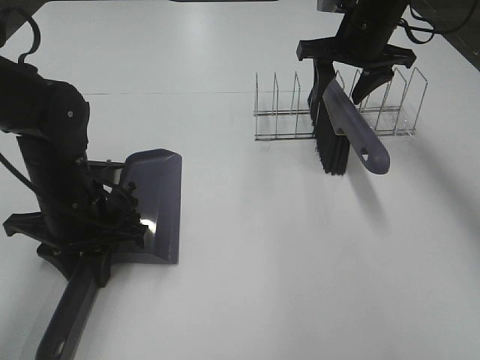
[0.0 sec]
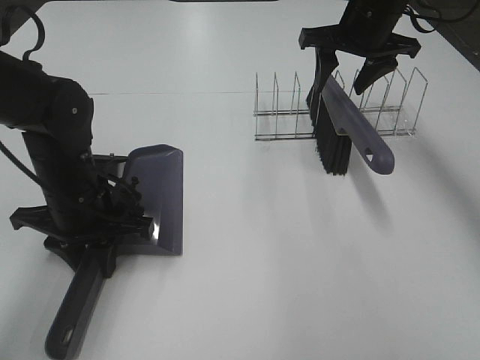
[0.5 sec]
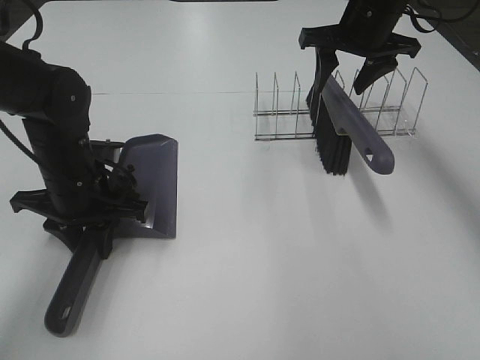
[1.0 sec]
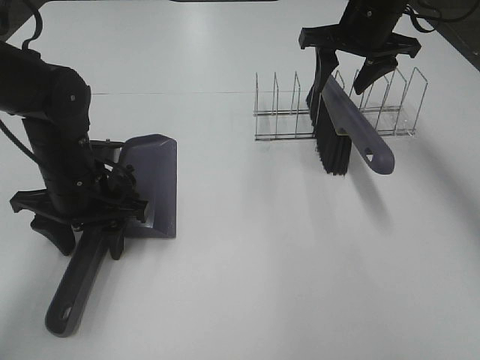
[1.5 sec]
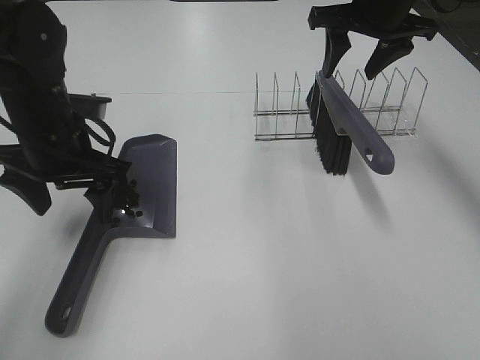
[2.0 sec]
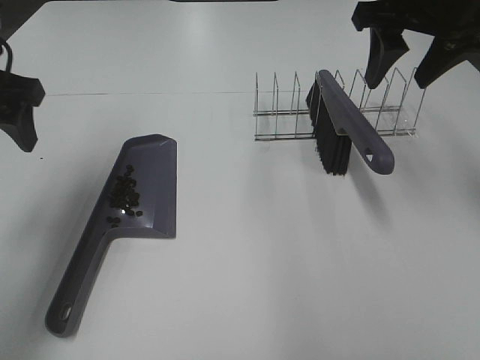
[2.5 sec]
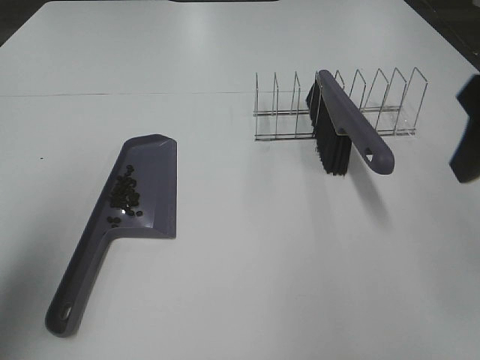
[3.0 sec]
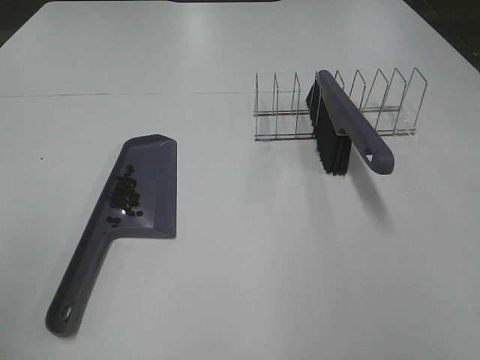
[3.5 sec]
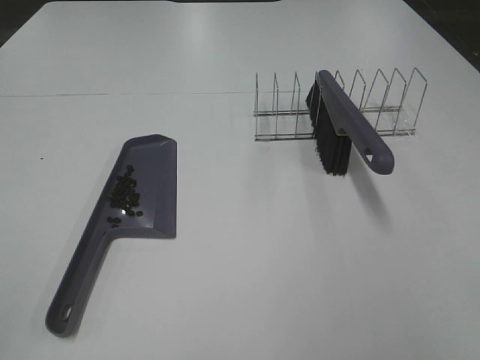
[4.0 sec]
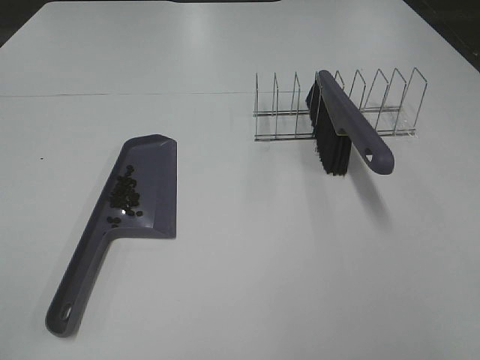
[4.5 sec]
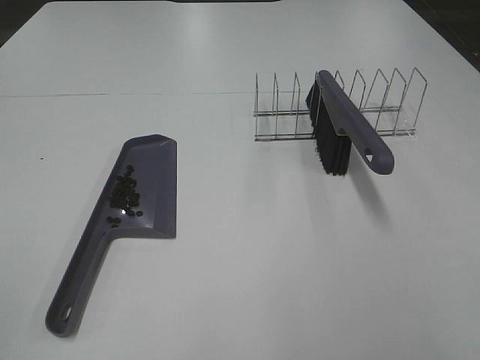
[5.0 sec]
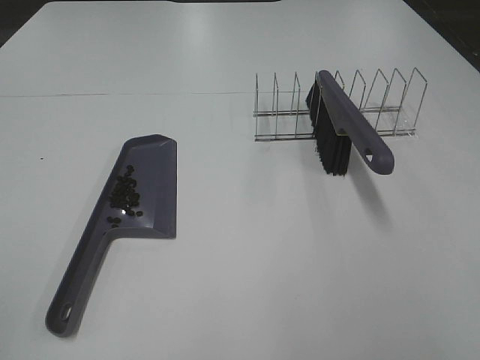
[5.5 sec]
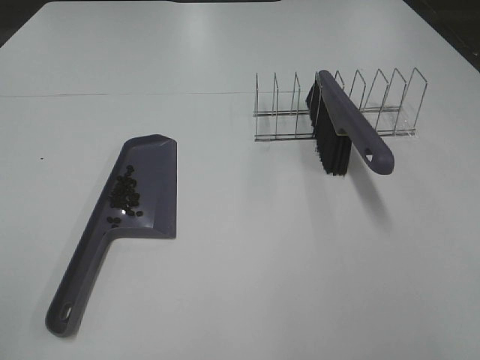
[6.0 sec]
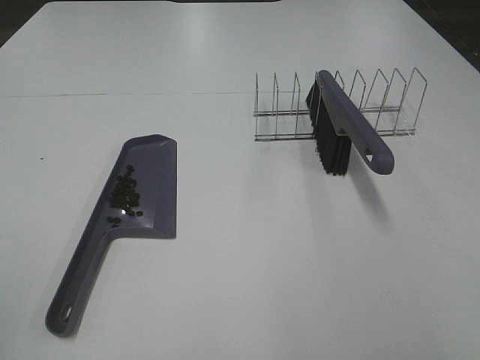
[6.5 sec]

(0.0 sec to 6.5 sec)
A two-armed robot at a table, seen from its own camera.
Task of the whole recording: Sweep Coffee Bean.
Step, 0.0 sec - 1.5 sec: Left hand:place the dustpan on the table.
0.0 sec - 2.0 sec: The left gripper moves upward, about 5 cm, and opens its fingers, while the right gripper ends up roughly 5 cm from where it was.
2.0 sec - 4.5 sec: The right gripper heads backward, covering about 50 cm; the left gripper goes roughly 35 cm backward and to the left.
